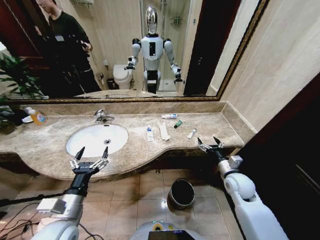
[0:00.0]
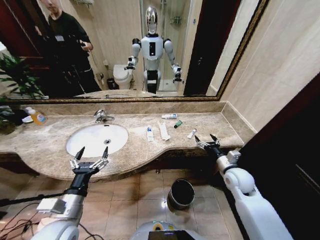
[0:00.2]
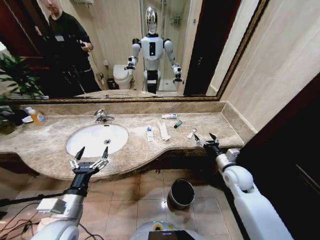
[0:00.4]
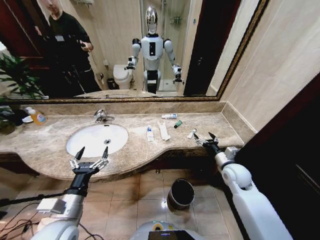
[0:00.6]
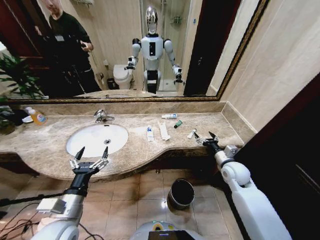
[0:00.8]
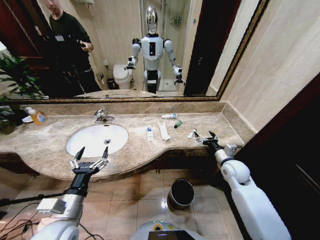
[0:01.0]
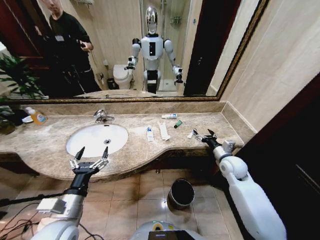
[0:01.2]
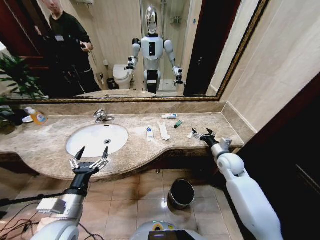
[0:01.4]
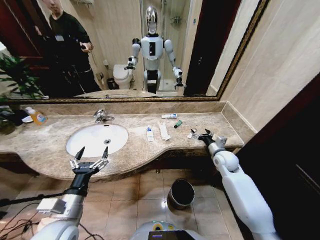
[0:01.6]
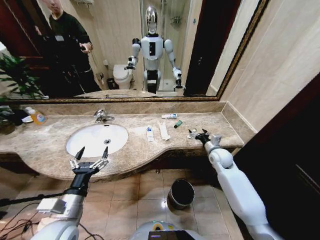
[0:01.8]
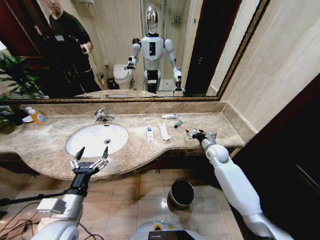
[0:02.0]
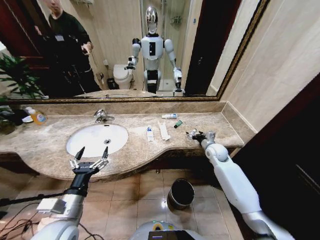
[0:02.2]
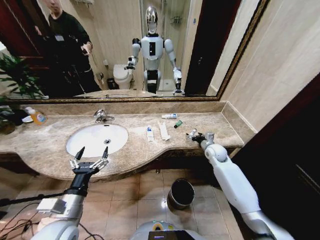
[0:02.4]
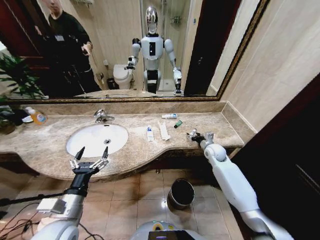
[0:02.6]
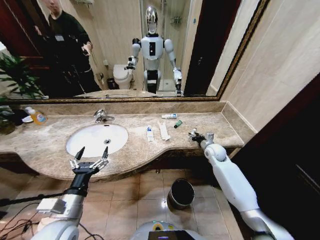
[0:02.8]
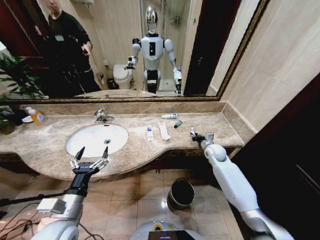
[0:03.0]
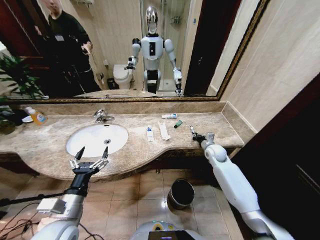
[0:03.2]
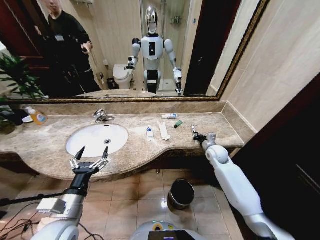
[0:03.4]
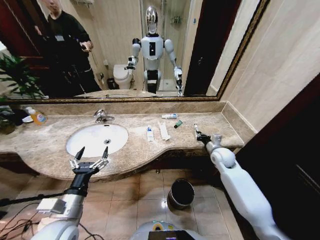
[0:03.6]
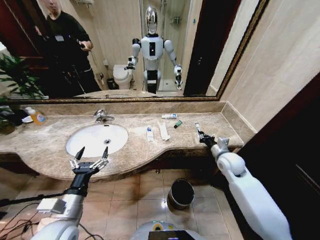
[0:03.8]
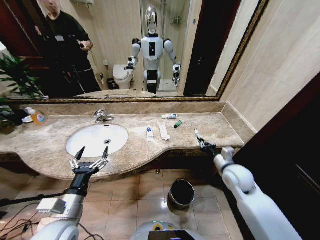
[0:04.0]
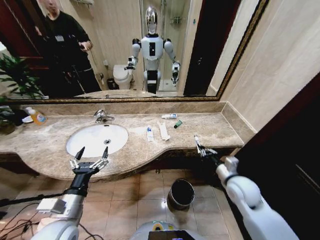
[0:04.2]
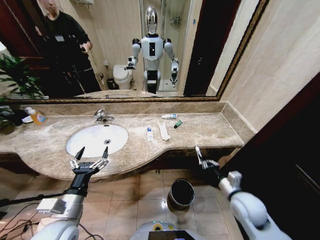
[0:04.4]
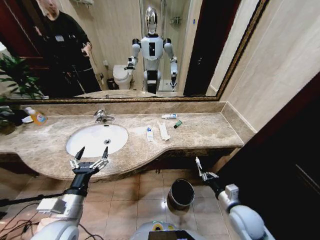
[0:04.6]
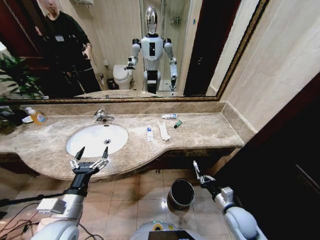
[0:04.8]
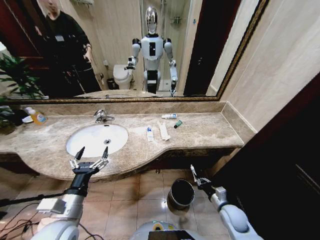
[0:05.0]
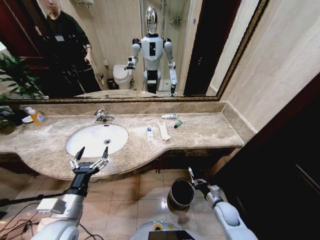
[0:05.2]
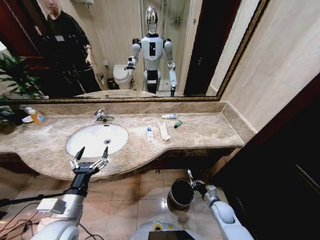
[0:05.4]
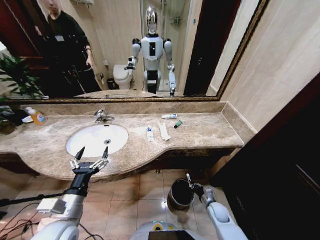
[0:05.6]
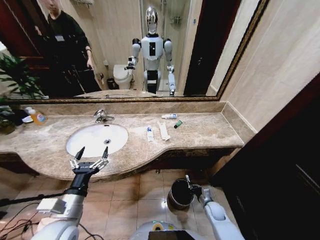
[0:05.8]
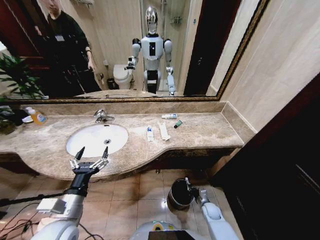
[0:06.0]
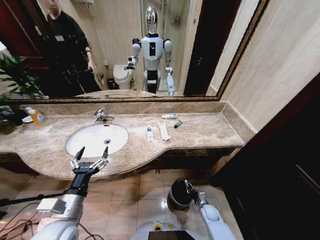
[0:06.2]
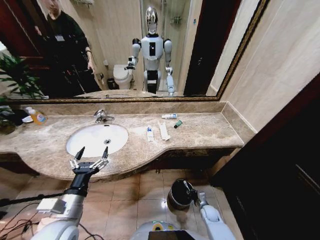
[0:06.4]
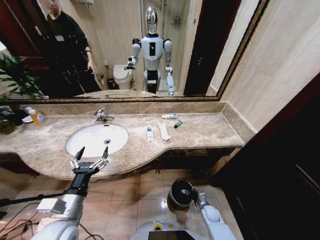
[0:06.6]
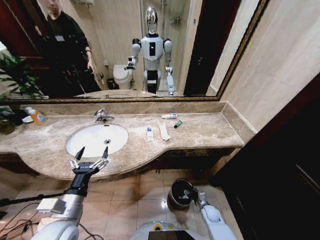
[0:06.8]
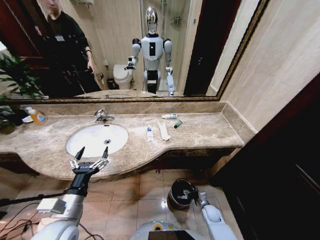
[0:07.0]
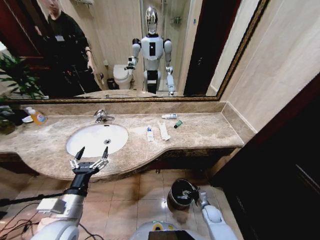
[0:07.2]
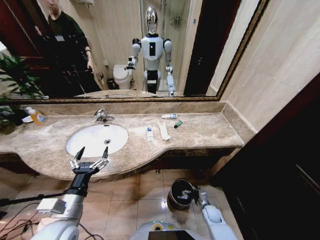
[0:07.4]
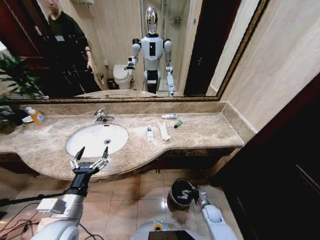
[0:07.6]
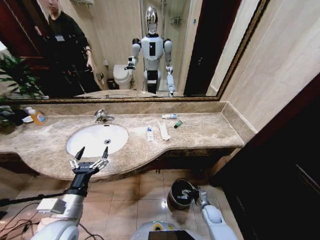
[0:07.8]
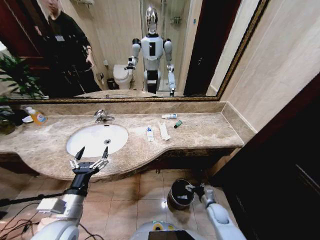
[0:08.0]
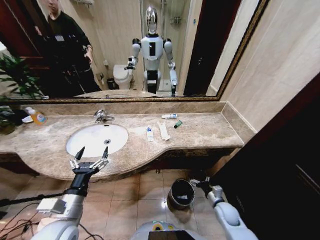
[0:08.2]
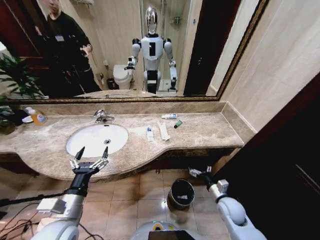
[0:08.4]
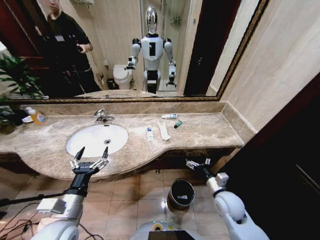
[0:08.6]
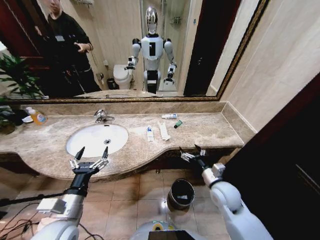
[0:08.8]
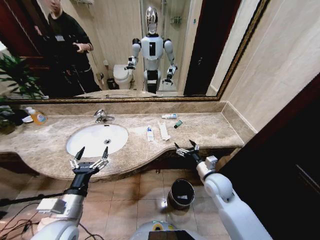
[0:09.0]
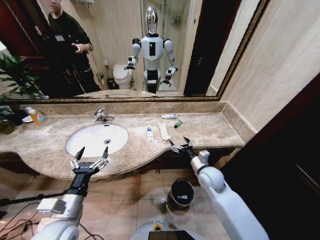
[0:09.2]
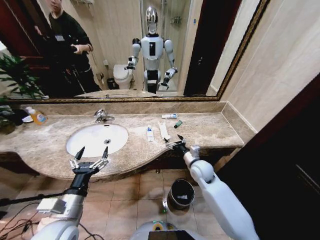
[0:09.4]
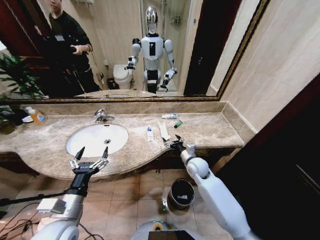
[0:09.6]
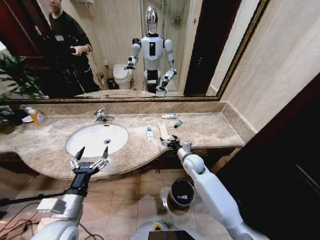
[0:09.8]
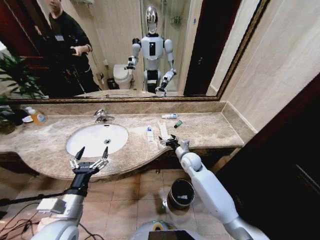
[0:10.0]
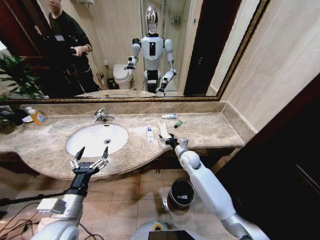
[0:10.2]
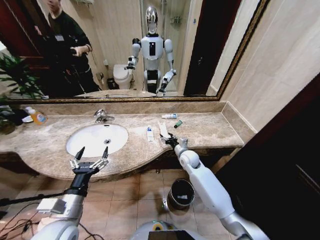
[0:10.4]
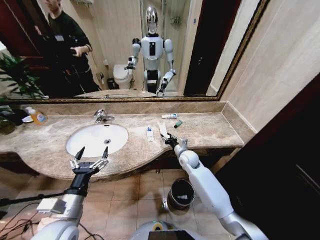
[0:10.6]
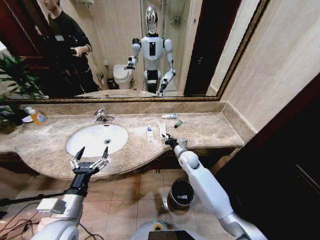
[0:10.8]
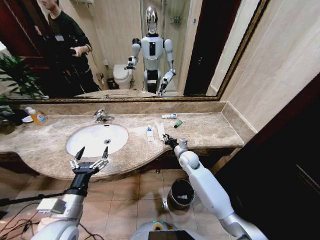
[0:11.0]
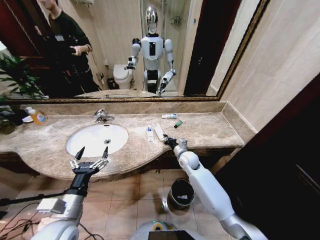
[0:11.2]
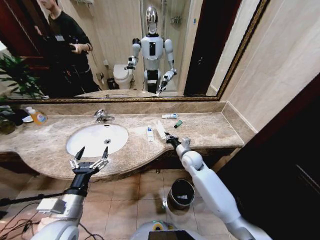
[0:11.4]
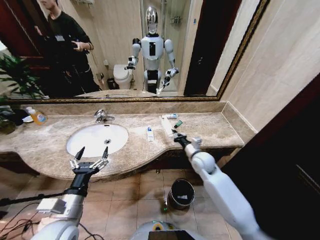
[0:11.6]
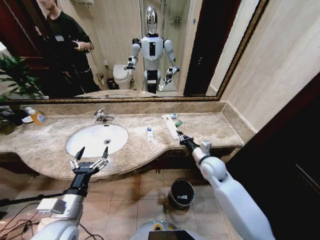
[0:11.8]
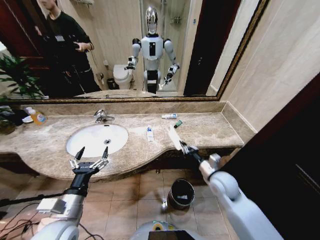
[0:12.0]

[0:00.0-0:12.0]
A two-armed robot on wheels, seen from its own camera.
Task of the whole recording: Pick up the trash from the sink and place it in the trash bin.
0:01.6 to 0:03.0: The right gripper goes some 5 cm forward, and closes up.
0:03.0 to 0:04.4: The right gripper shifts some 25 cm backward.
0:04.4 to 0:06.0: The right gripper moves downward, roughly 30 cm.
0:07.6 to 0:09.0: The right gripper shifts approximately 30 cm upward.
0:09.0 to 0:10.4: The right gripper travels forward and to the left by about 15 cm.
0:10.4 to 0:12.0: The right gripper shifts about 15 cm backward and to the right, and closes its fingers.

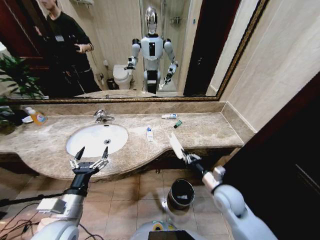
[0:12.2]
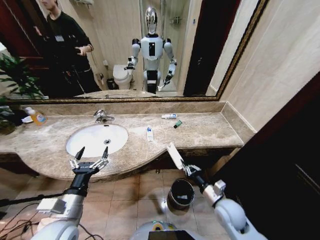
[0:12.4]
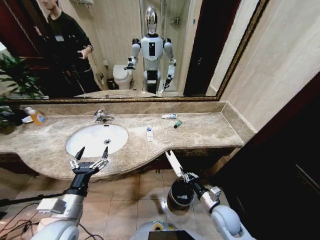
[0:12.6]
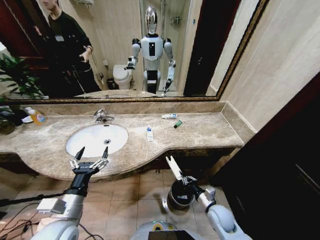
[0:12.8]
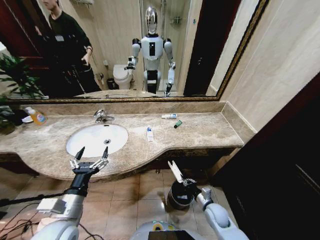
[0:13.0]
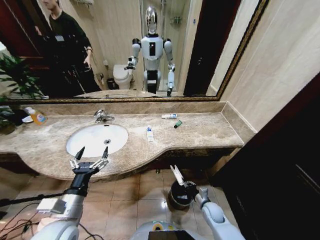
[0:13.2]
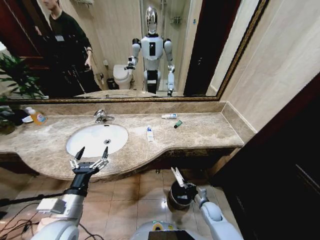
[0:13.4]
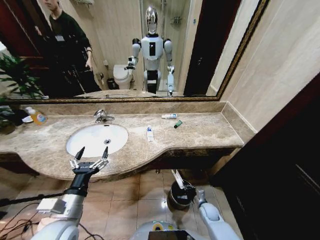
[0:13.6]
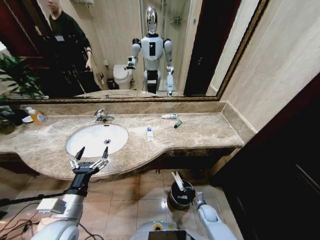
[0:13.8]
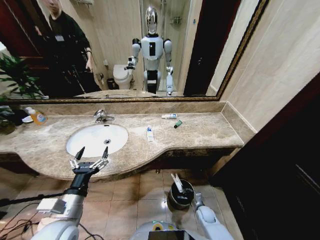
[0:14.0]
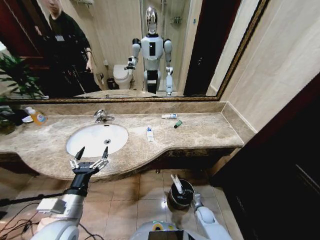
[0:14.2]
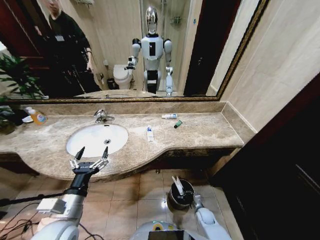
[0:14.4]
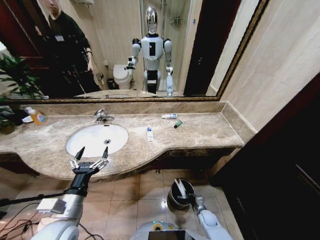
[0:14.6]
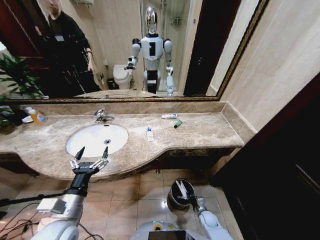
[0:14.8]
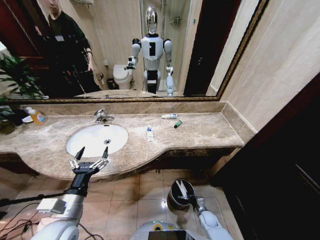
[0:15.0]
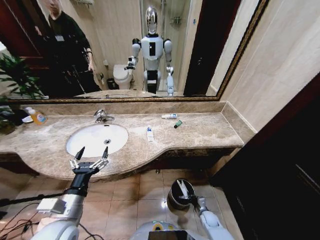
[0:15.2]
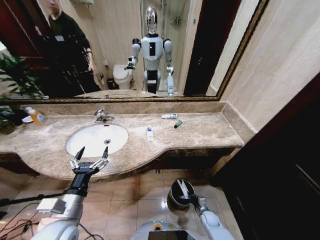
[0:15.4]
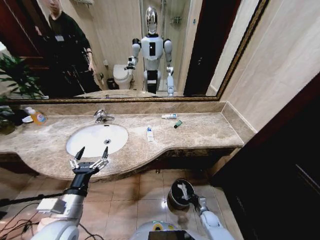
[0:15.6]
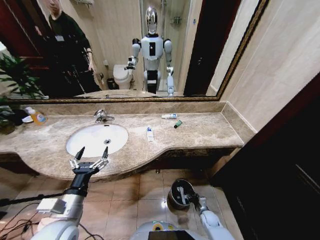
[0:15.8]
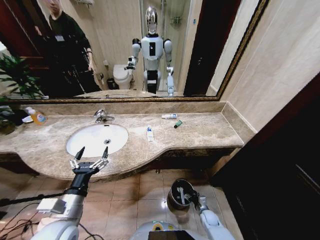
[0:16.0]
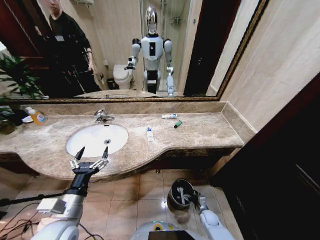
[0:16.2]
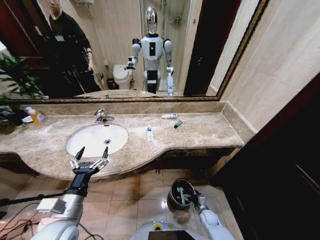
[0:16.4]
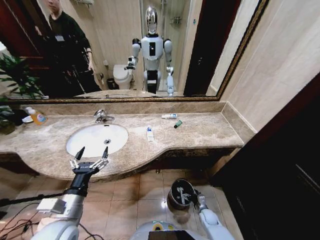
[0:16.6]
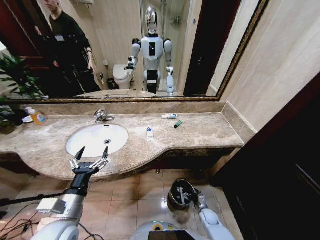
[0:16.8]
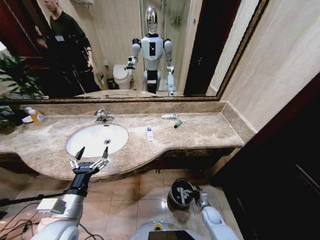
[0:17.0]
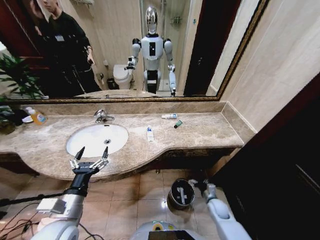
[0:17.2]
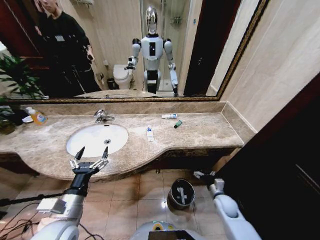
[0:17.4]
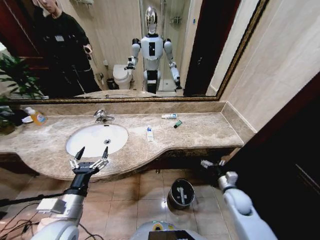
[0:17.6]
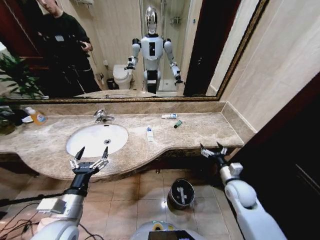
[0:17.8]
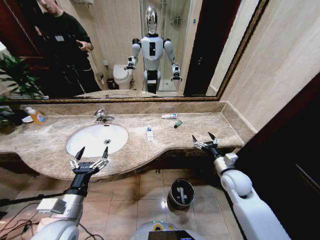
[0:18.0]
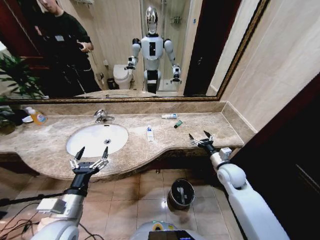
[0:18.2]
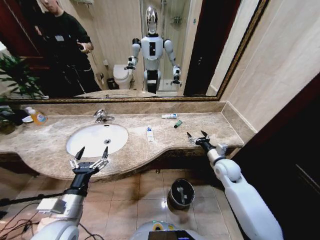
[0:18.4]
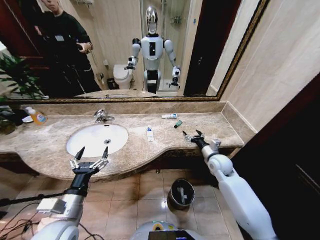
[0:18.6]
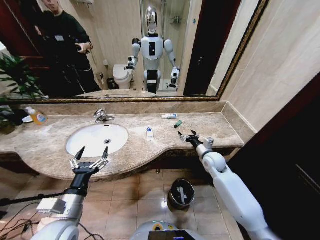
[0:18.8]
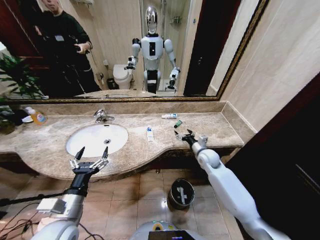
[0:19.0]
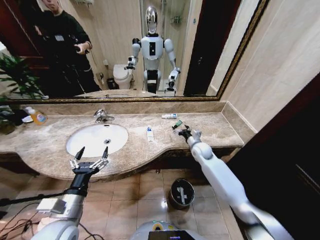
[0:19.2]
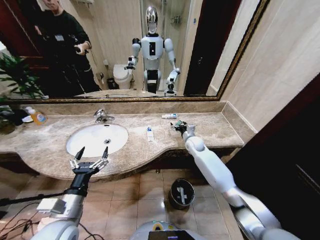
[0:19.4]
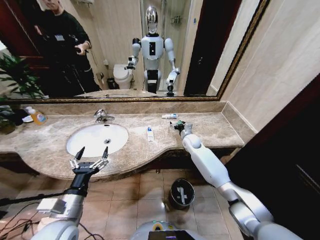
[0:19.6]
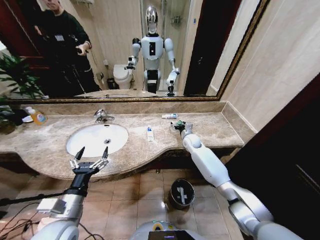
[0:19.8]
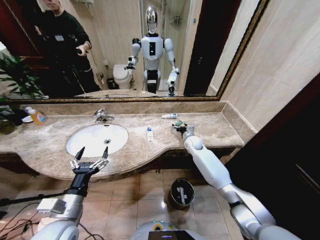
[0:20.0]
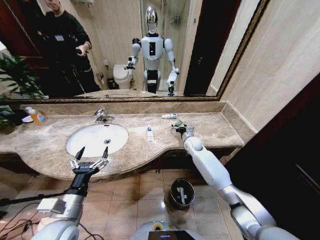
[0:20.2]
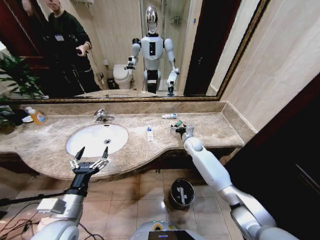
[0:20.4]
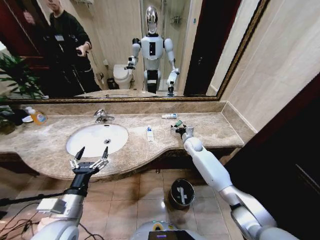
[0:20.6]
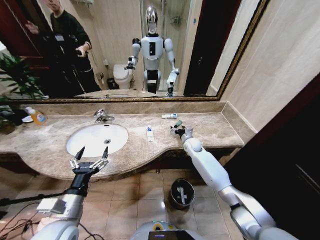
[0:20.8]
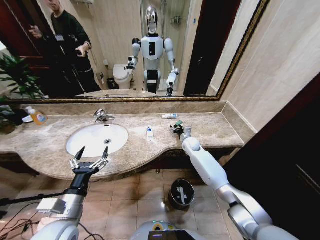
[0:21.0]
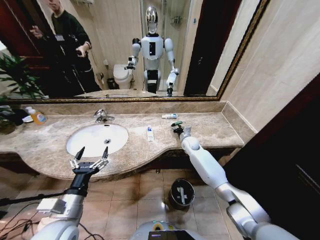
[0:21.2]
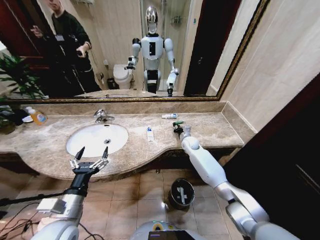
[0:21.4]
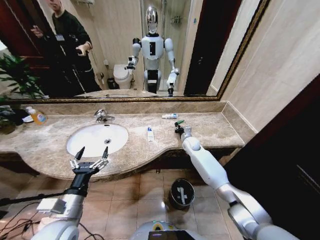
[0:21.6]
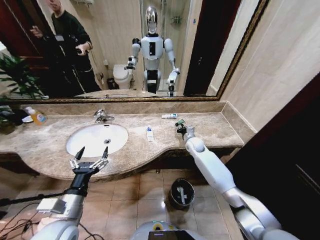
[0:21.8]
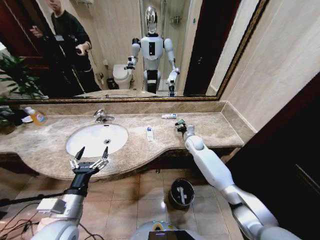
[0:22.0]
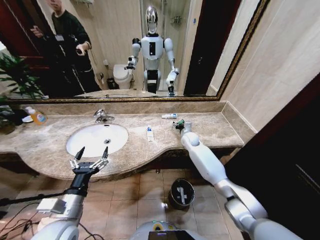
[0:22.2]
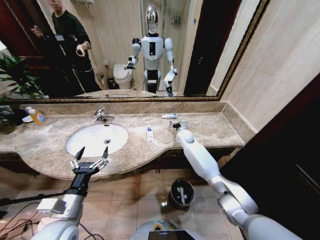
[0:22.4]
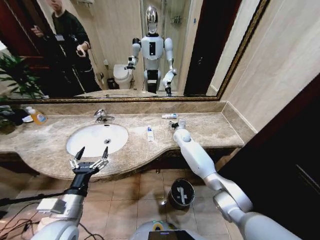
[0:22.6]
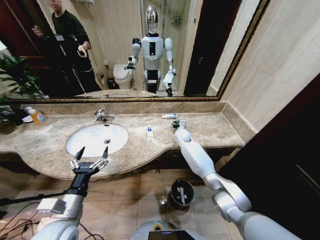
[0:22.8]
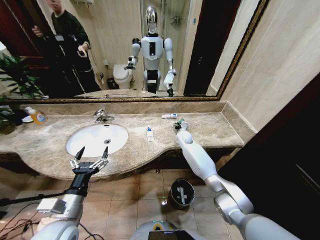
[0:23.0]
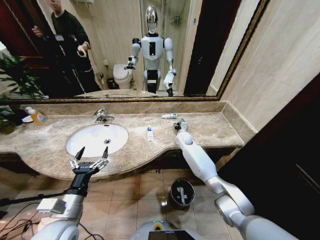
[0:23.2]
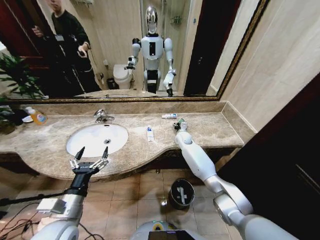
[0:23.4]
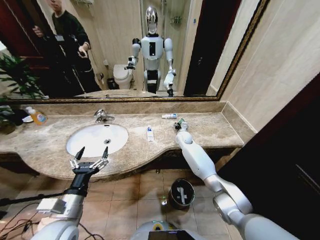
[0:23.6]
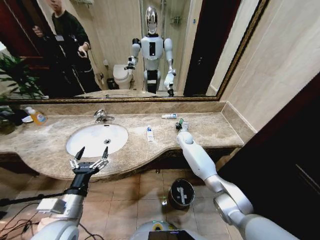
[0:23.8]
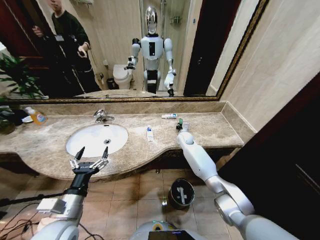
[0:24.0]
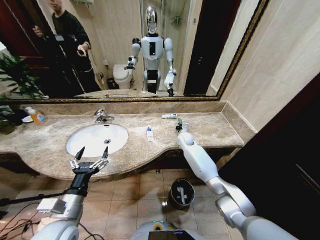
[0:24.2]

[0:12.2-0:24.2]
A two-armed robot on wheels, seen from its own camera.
Task of the whole recording: Pick up the trash from the sink and place it in the trash bin.
0:12.2 to 0:13.8: The right gripper travels downward by some 30 cm.
0:13.8 to 0:15.2: The grippers move only a little.
0:16.6 to 0:18.2: The right gripper shifts approximately 35 cm upward.
0:18.2 to 0:19.8: The right gripper shifts about 25 cm forward and to the left.
0:19.8 to 0:21.2: The right gripper closes up.
0:21.2 to 0:22.6: The right gripper moves to the left, roughly 5 cm, and closes, then opens again.
0:22.6 to 0:24.2: The right gripper closes.
